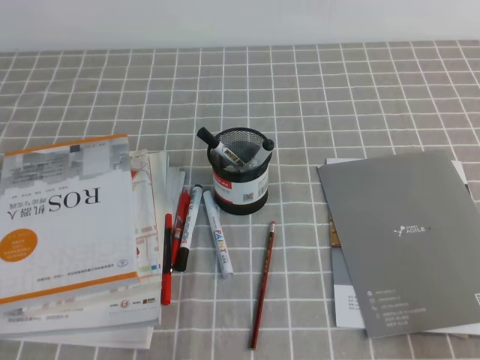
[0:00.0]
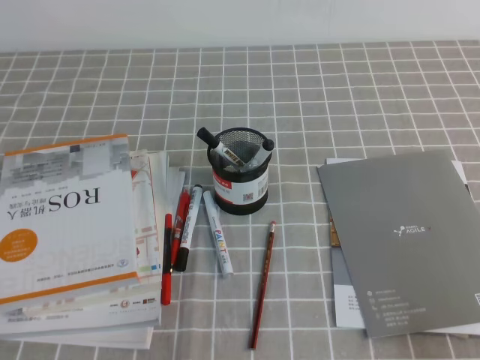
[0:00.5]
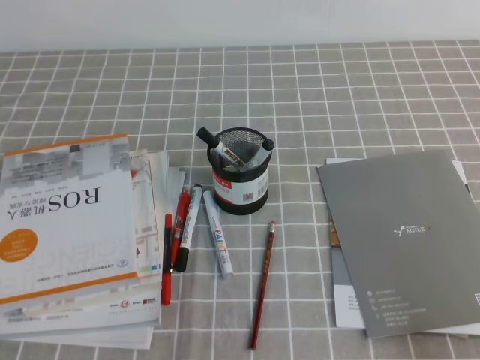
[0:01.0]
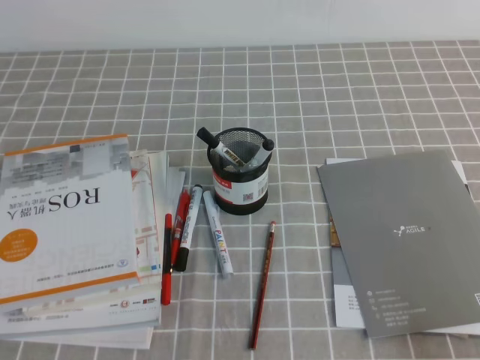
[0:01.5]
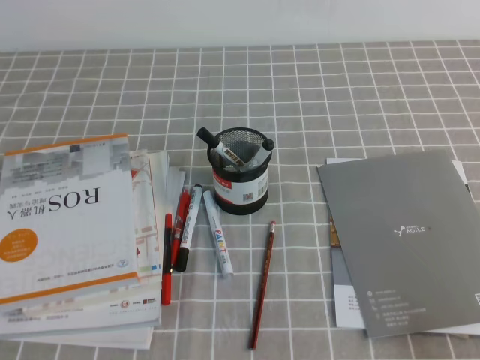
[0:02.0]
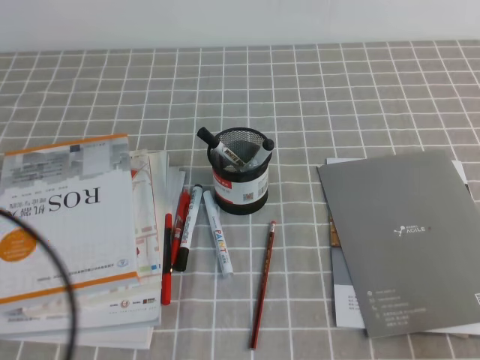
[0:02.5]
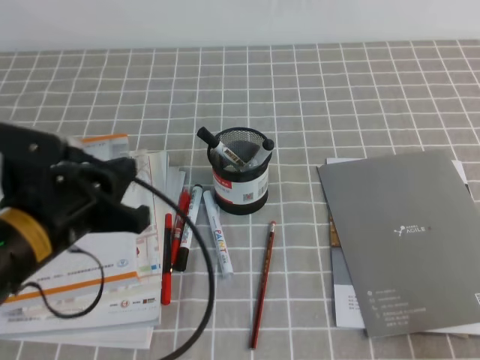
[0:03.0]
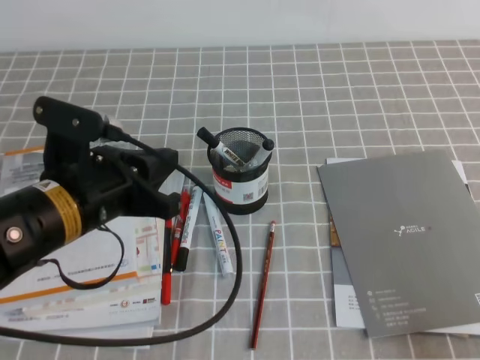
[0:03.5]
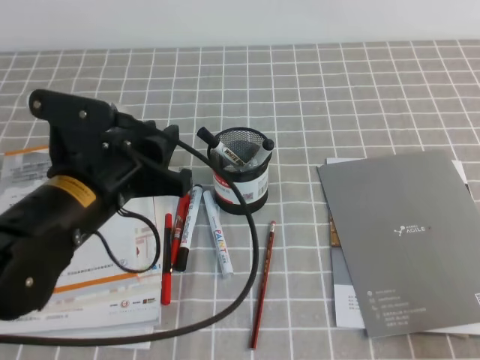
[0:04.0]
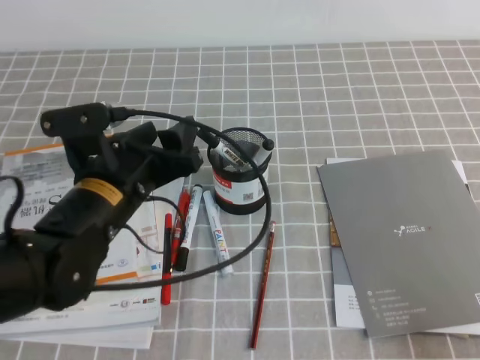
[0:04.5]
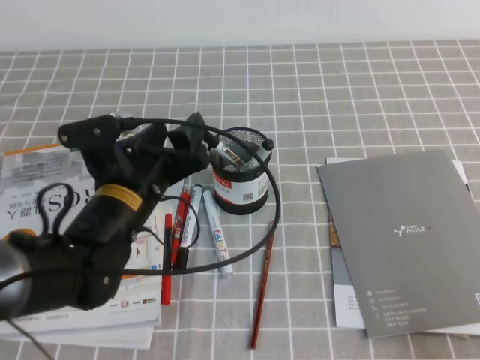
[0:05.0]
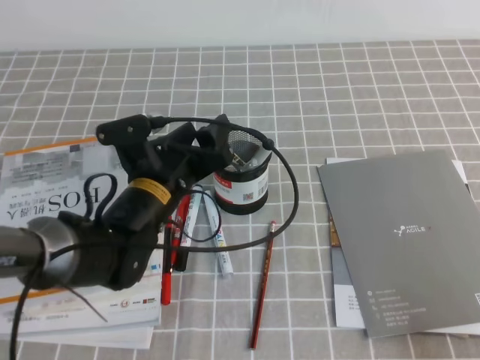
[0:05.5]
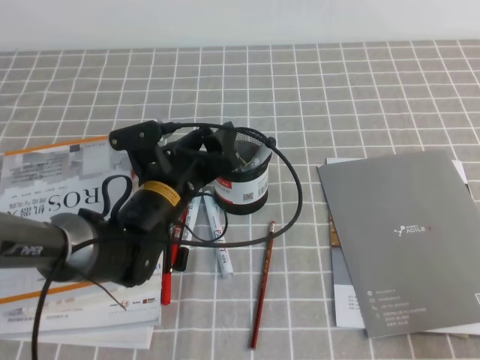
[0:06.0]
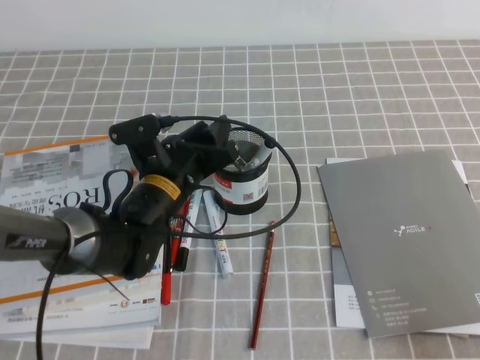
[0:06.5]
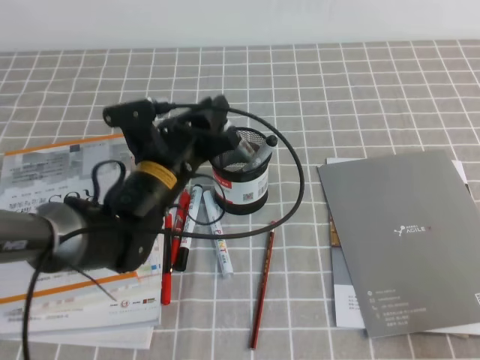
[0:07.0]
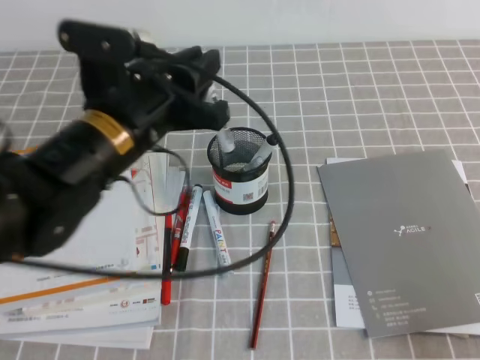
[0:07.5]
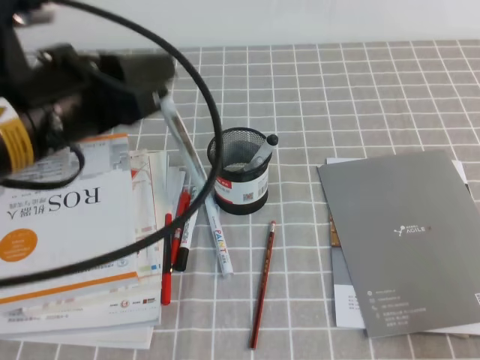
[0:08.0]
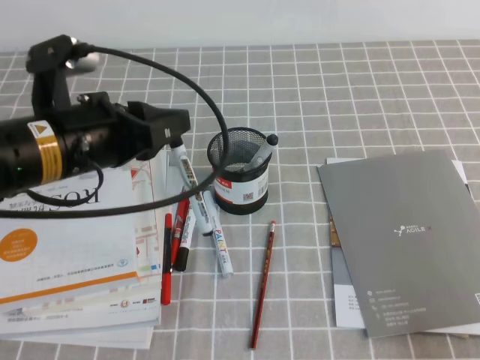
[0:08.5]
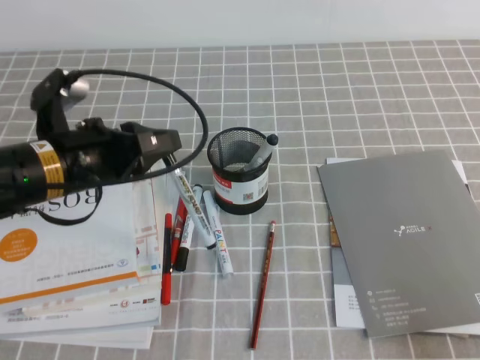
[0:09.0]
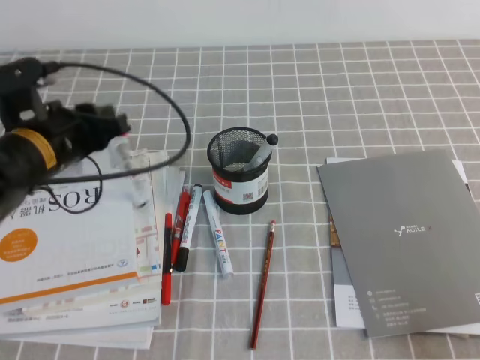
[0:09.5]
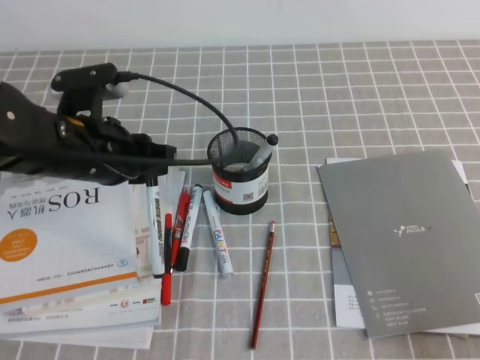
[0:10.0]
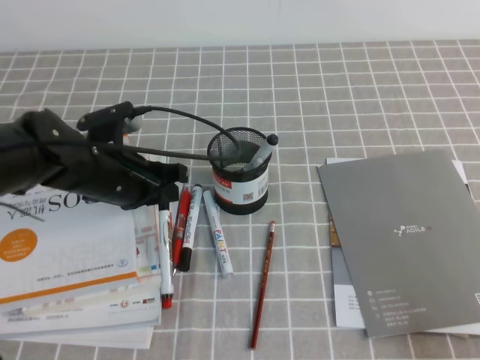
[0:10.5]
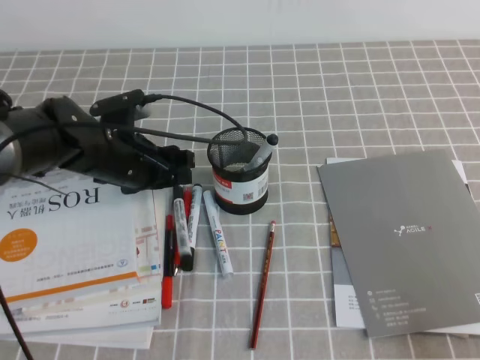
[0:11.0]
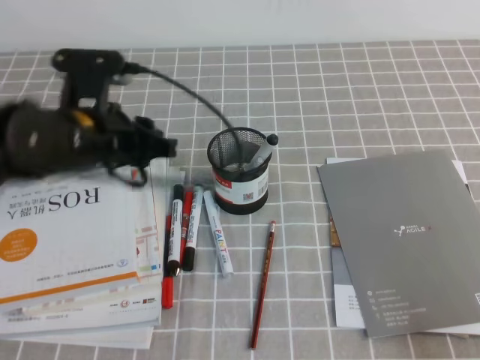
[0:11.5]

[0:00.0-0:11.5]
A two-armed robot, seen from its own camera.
0:02.0 to 0:04.0: The left gripper travels forward and to the right by approximately 25 cm, and opens its fingers.
0:04.0 to 0:06.0: The left gripper is displaced downward, forward and to the right by some 15 cm, and opens.
0:06.0 to 0:07.5: The left gripper shifts roughly 15 cm upward, and closes up.
0:07.5 to 0:09.5: The left gripper moves to the left, some 10 cm.

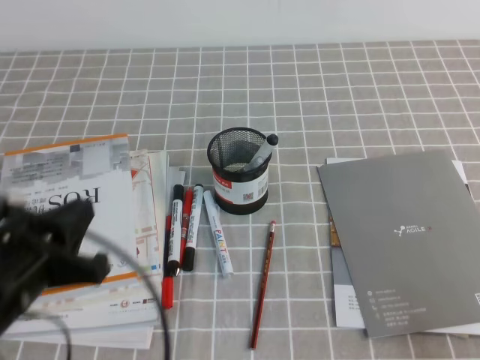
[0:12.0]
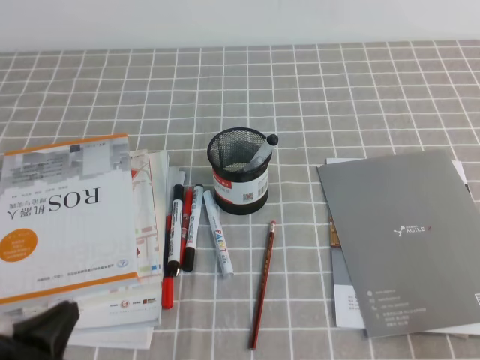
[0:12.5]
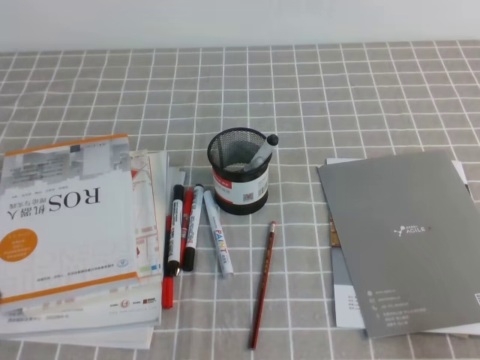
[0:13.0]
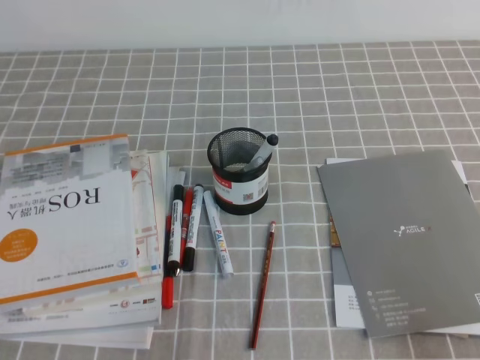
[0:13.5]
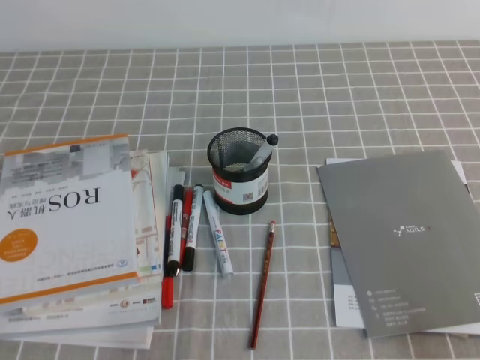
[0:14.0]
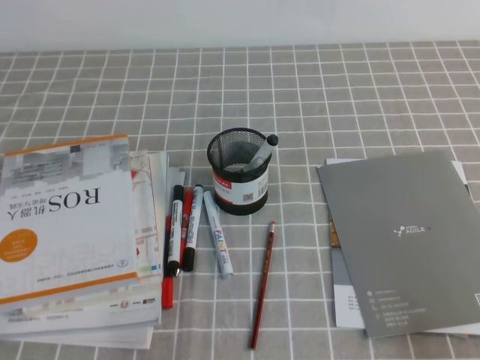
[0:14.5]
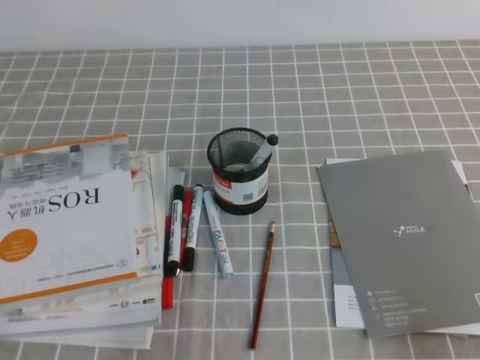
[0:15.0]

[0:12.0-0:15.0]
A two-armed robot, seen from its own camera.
Step, 0:12.0 to 0:15.0: Pick up the pen from the pen holder.
0:12.0 to 0:13.5: The left gripper moves backward, downward and to the left, some 15 cm.

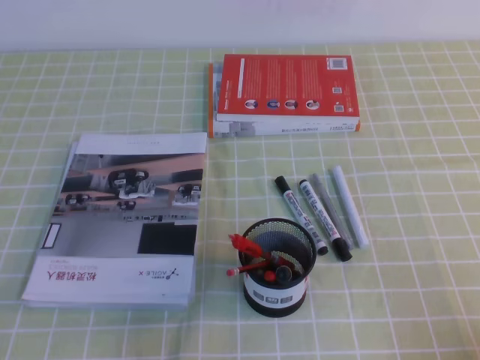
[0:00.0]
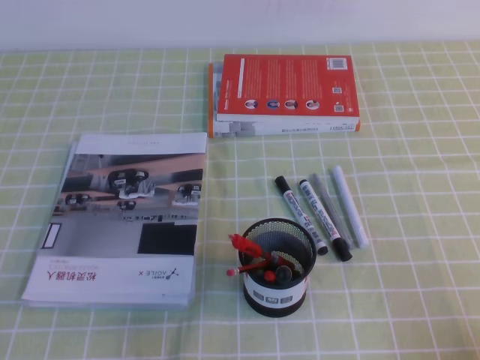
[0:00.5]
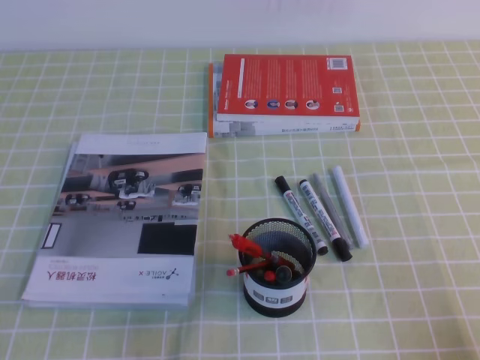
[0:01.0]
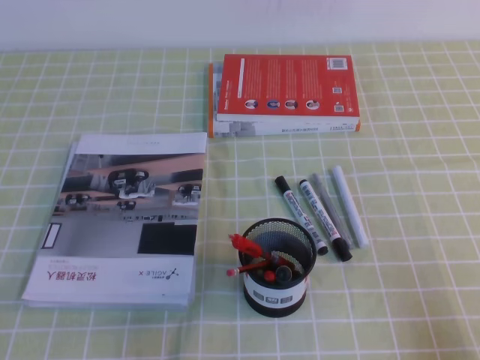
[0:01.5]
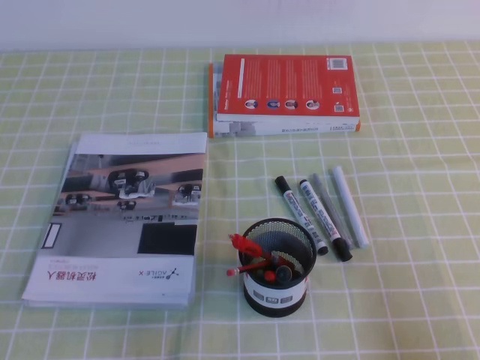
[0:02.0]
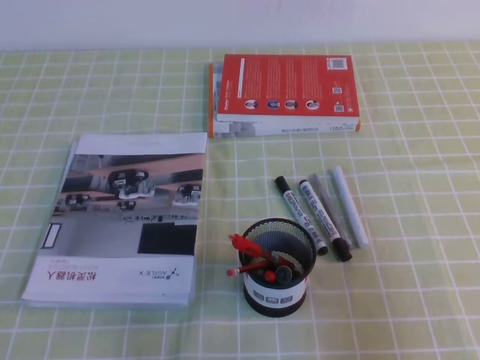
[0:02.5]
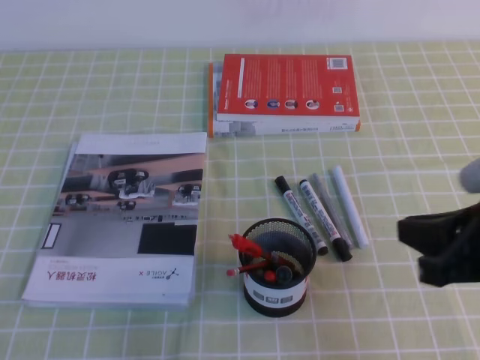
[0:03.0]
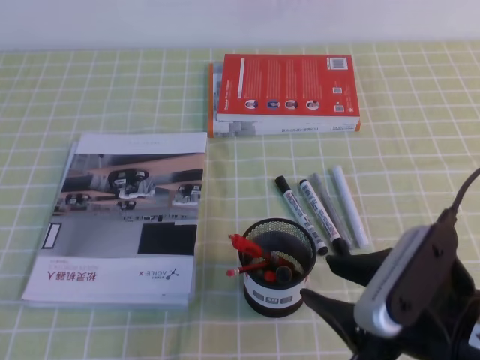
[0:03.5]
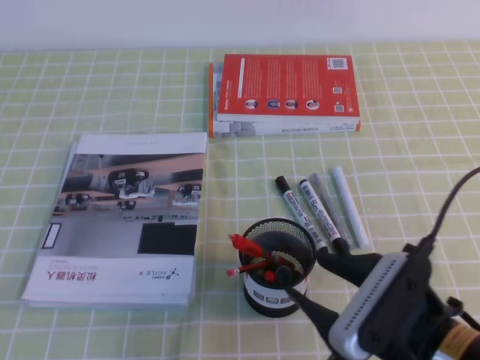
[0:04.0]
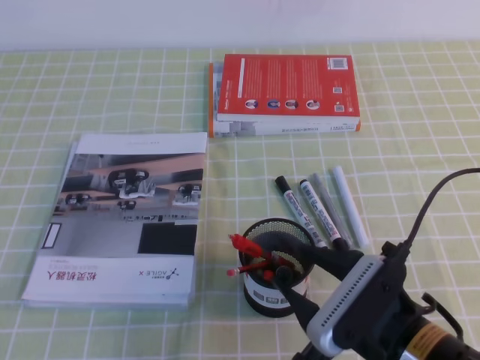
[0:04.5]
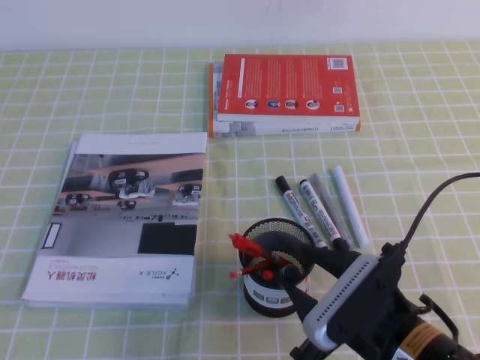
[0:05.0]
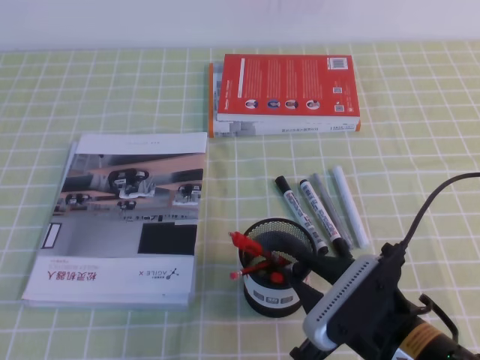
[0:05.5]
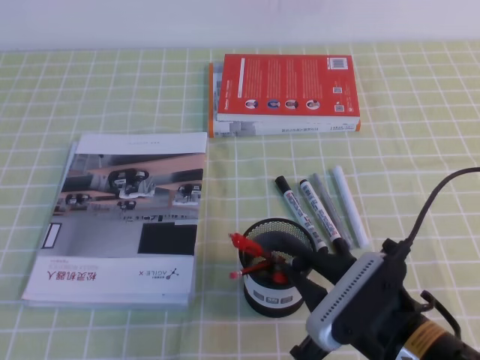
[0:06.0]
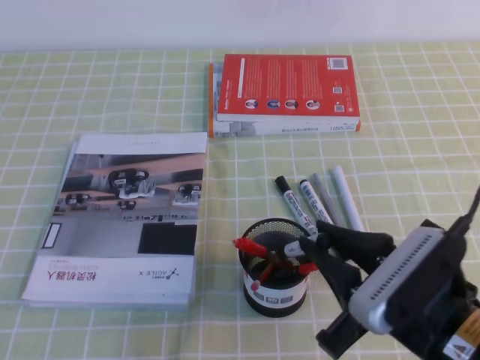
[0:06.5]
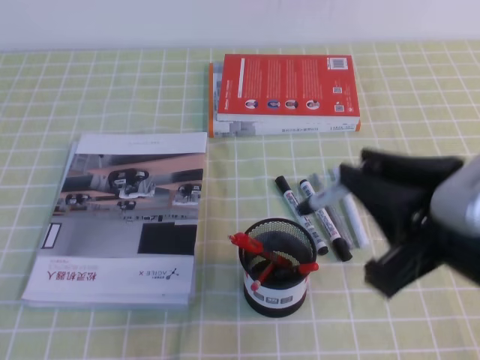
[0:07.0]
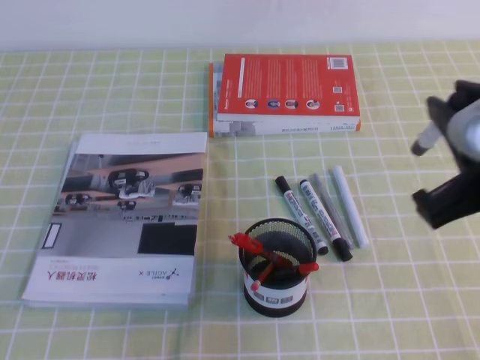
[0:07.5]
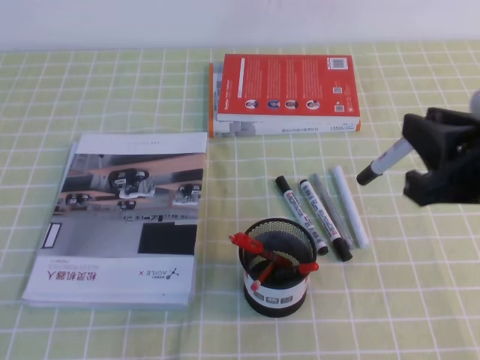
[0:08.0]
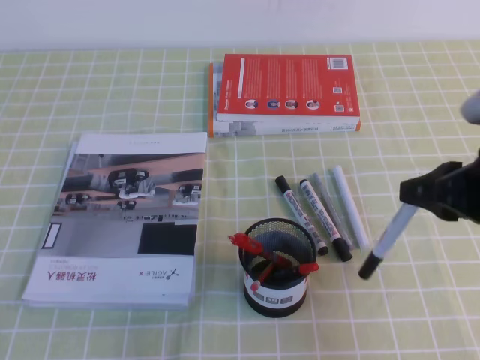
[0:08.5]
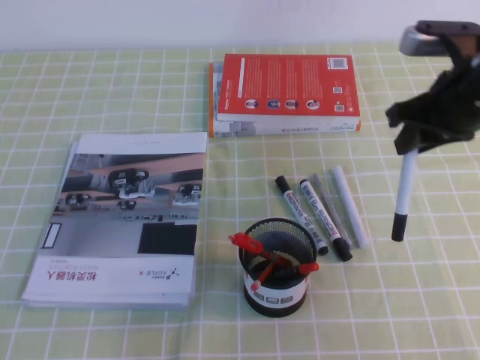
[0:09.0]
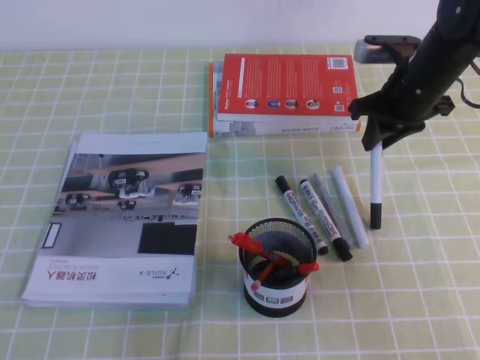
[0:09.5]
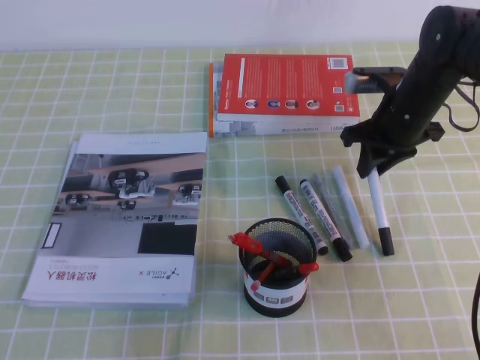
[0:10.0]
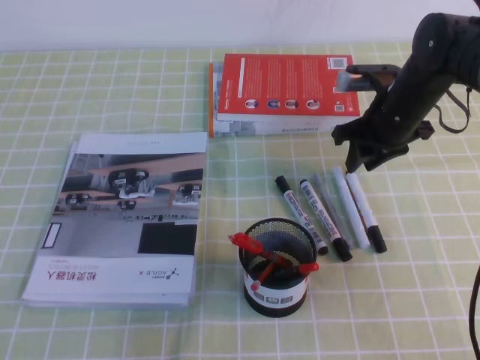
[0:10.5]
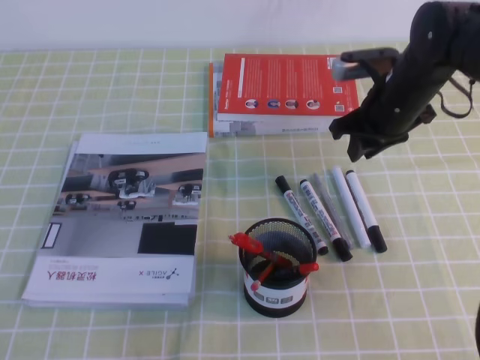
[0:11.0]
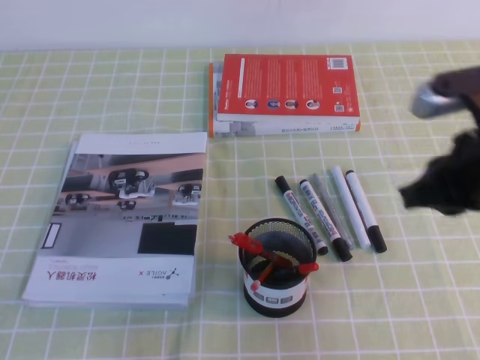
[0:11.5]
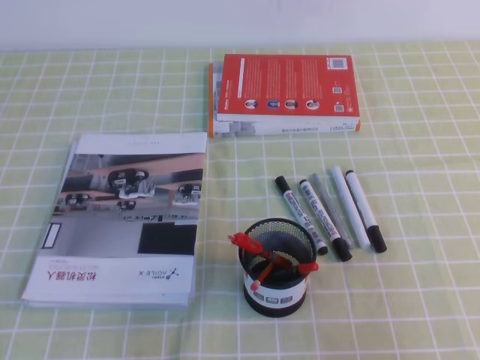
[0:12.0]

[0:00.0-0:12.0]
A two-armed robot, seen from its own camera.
0:00.0 to 0:02.0: The right gripper heads upward, covering about 5 cm.
0:02.0 to 0:04.0: The right gripper shifts some 20 cm to the left and forward, and opens.
0:04.0 to 0:06.0: The right gripper closes its fingers.
0:06.0 to 0:08.0: The right gripper goes about 15 cm upward and to the right.
0:08.0 to 0:10.0: The right gripper heads forward and downward, covering some 30 cm.
0:10.0 to 0:12.0: The right gripper moves backward, about 35 cm.
